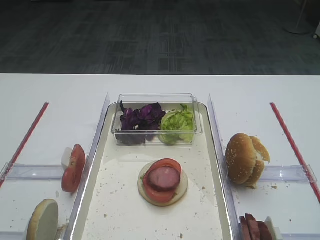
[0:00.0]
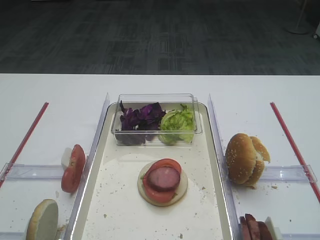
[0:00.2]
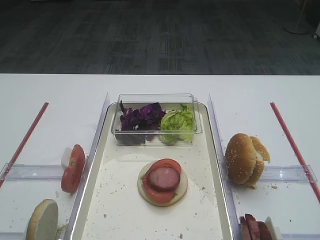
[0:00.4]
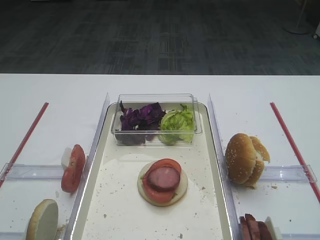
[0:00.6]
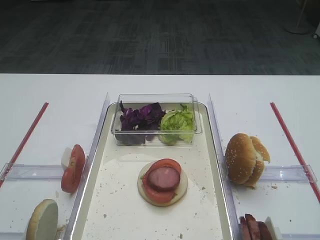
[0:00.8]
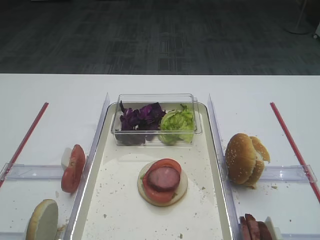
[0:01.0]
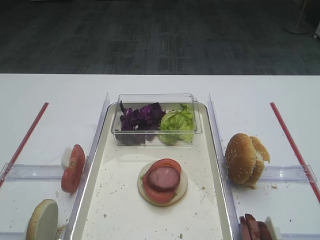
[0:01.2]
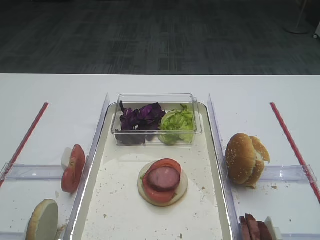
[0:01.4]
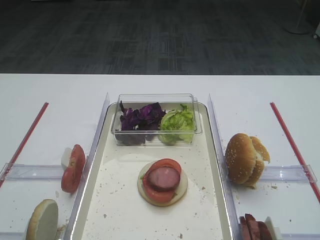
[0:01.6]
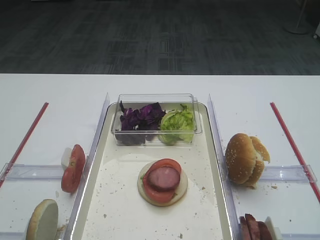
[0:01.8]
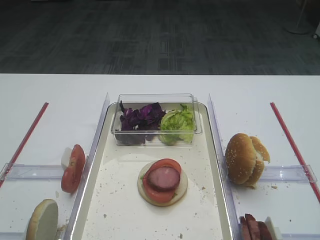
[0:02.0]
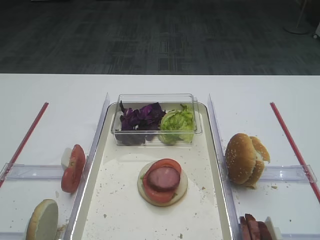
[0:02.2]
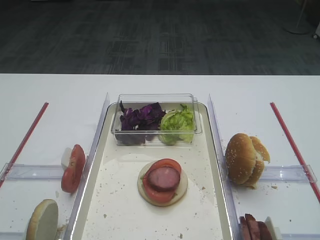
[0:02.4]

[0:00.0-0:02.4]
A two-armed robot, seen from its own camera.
0:00.0 to 0:02.4: Neither gripper changes place.

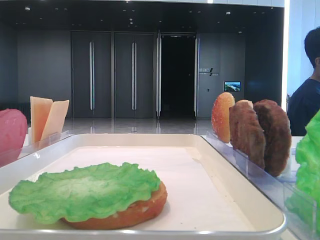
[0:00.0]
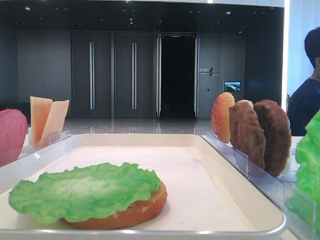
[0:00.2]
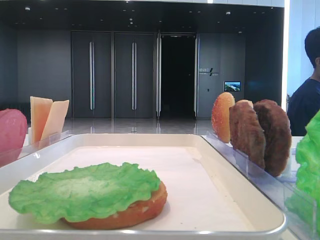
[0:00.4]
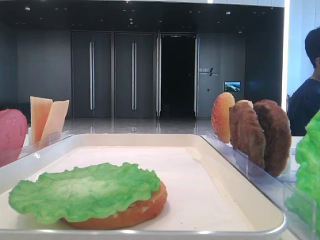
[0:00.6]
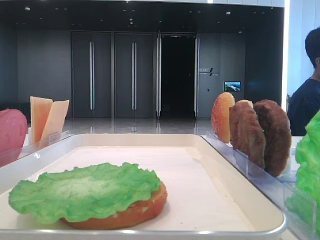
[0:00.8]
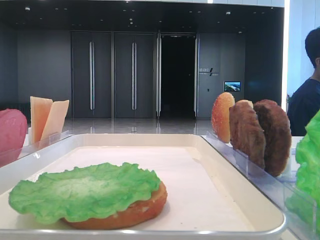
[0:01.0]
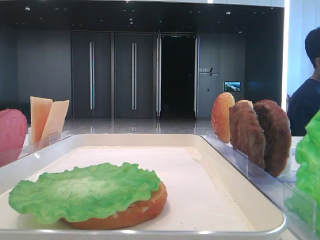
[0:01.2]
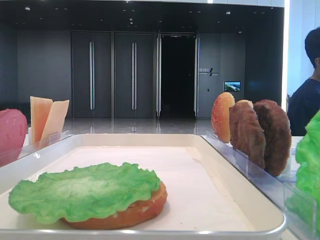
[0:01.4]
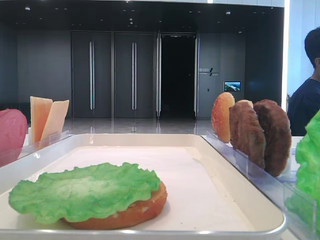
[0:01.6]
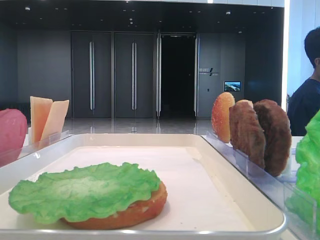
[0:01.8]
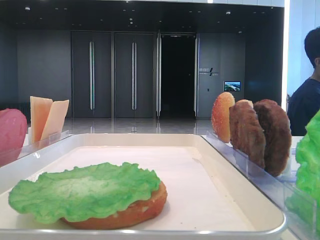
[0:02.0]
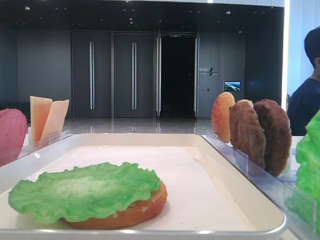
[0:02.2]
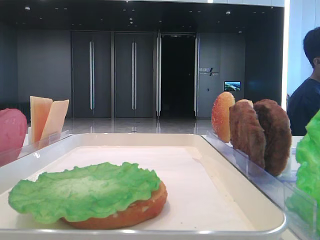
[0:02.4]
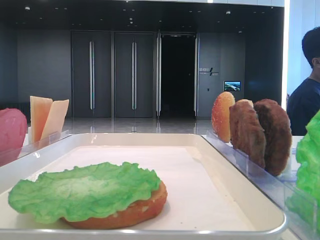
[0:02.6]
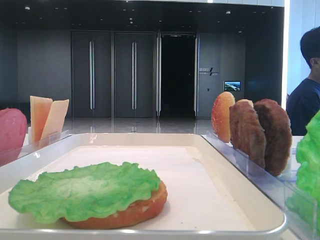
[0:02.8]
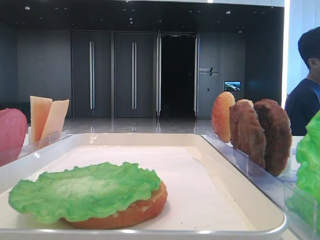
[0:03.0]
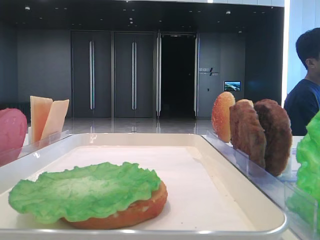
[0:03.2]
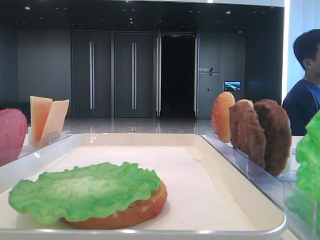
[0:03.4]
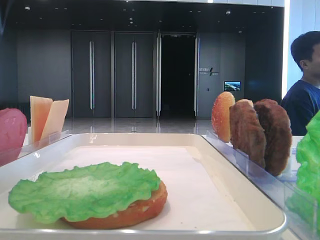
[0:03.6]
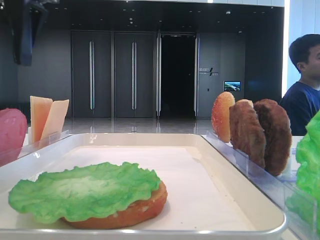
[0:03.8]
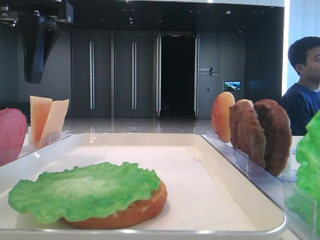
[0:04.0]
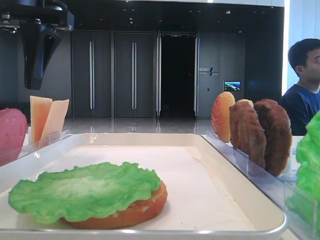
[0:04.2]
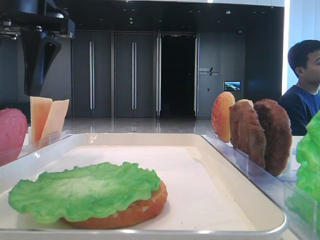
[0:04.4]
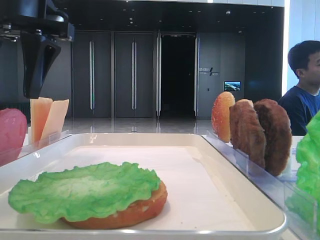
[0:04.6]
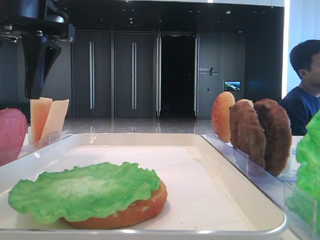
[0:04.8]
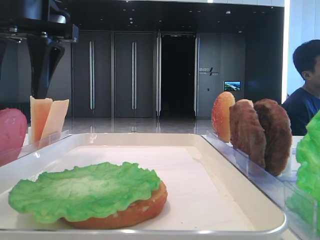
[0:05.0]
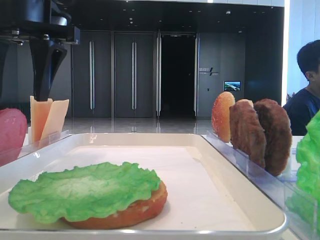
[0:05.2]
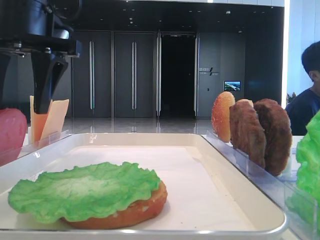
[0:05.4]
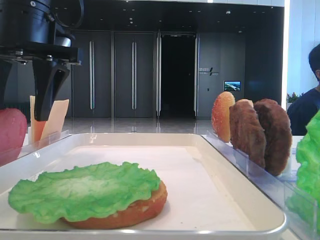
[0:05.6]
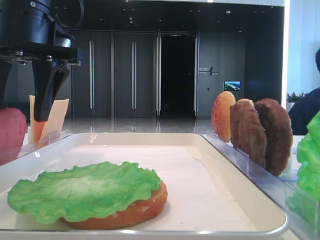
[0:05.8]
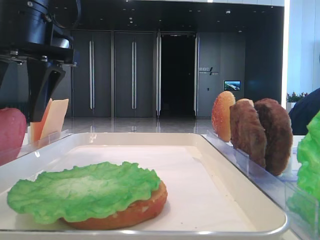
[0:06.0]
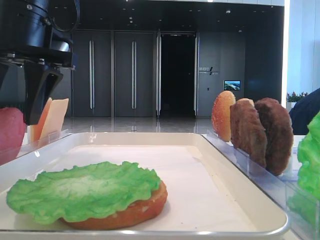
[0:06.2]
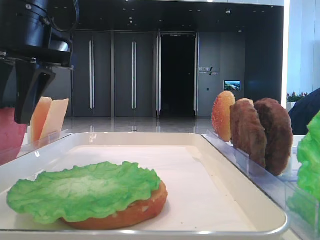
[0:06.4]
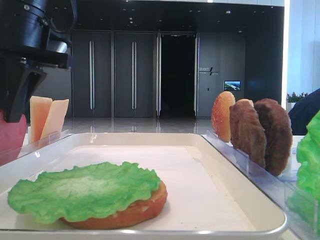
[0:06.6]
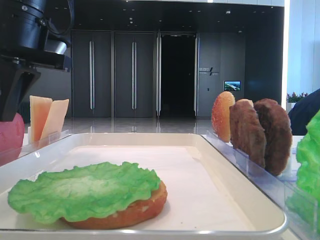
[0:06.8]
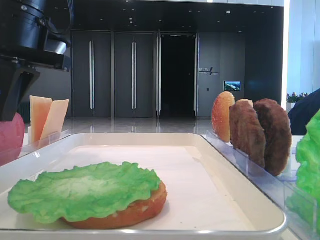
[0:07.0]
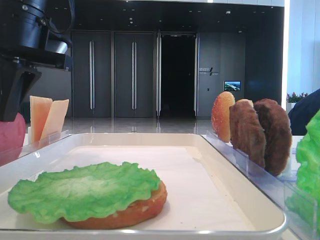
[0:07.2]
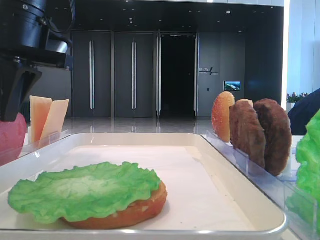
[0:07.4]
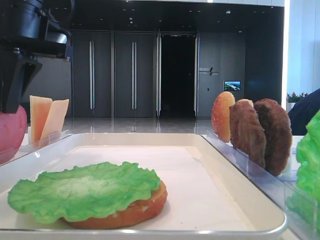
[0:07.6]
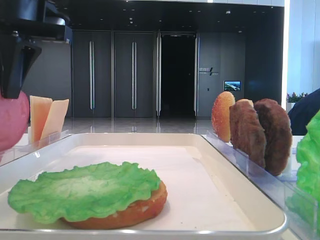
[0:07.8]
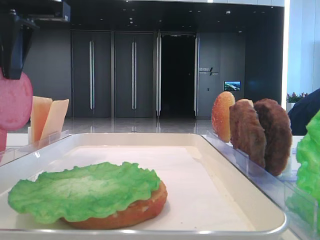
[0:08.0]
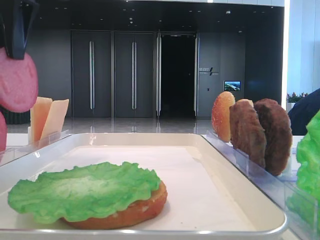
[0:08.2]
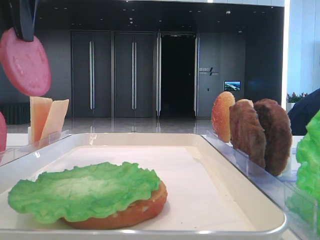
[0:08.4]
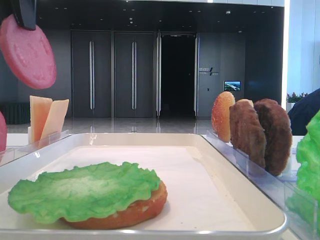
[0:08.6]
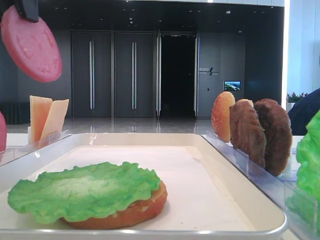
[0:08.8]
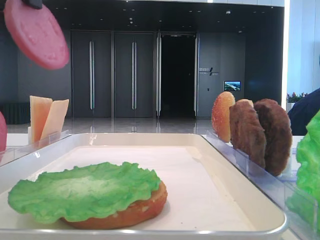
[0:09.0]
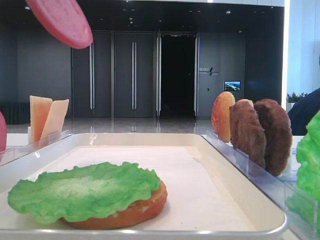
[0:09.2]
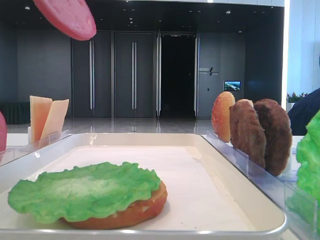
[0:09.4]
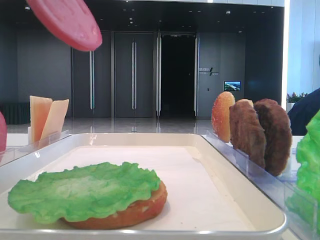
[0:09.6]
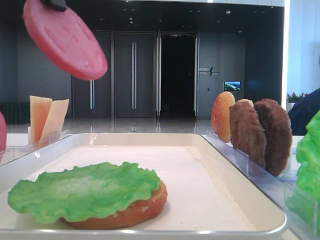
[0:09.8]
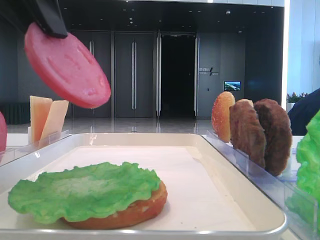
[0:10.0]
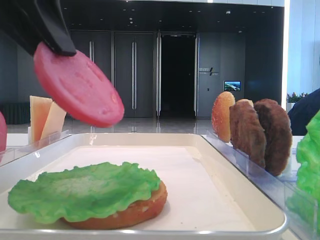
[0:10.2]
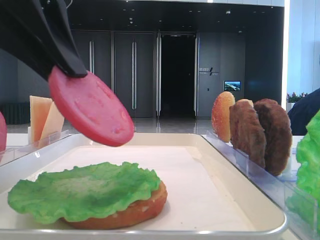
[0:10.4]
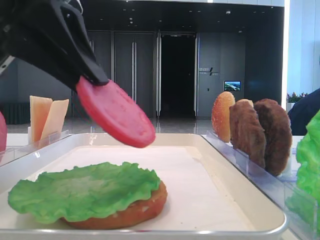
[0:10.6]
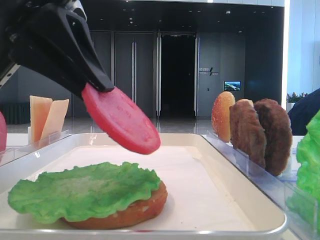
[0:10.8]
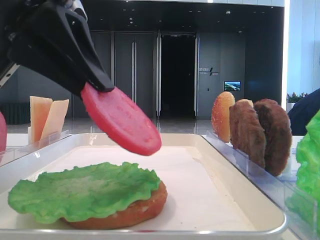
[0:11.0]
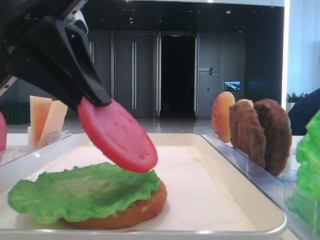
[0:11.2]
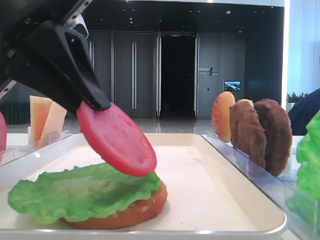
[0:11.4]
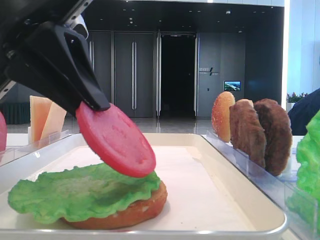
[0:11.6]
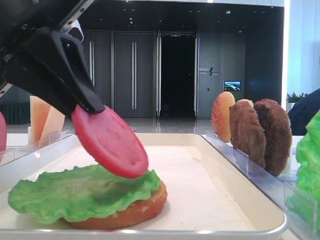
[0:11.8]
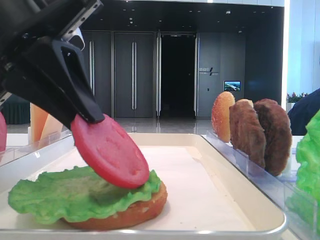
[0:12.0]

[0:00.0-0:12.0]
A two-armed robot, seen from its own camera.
Step, 0:00.0 to 0:07.4: Pick up the tomato slice with the left hand.
0:03.0 to 0:04.4: The left gripper is displaced to the right and downward by roughly 20 cm.
0:04.4 to 0:06.0: The grippers move only a little.
0:06.0 to 0:07.6: The left gripper closes its fingers.
0:07.6 to 0:09.0: The left gripper travels upward and backward by about 10 cm.
0:09.0 to 0:10.4: The left gripper moves downward, some 10 cm.
0:10.4 to 0:12.0: The grippers stay close to where they were, moving slightly.

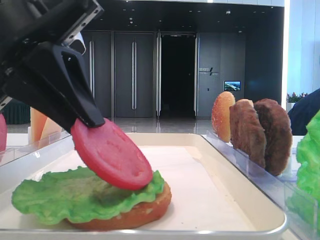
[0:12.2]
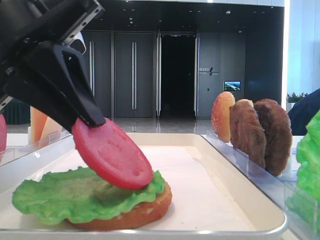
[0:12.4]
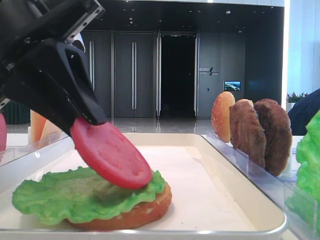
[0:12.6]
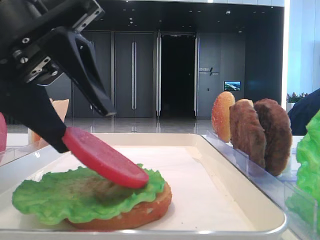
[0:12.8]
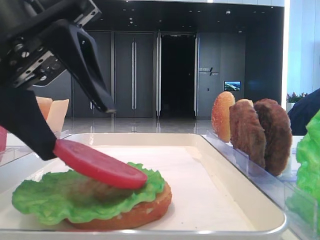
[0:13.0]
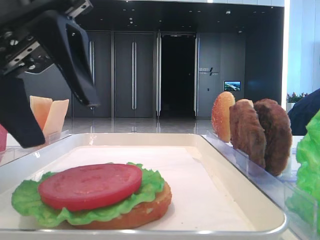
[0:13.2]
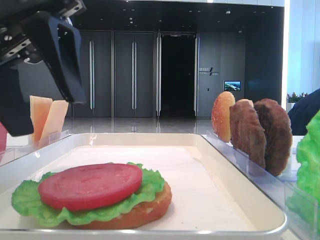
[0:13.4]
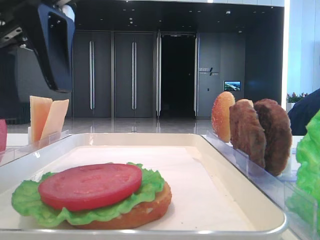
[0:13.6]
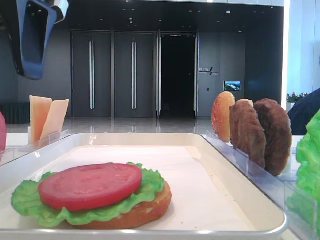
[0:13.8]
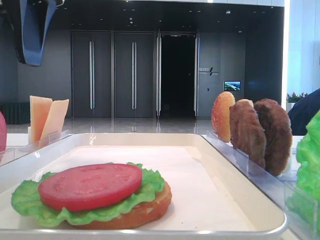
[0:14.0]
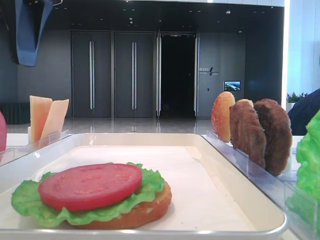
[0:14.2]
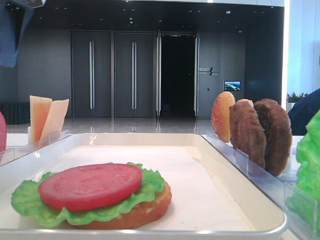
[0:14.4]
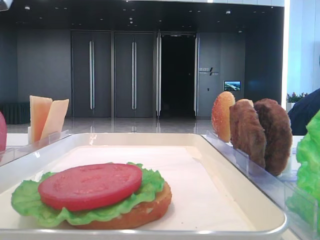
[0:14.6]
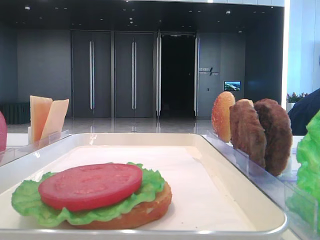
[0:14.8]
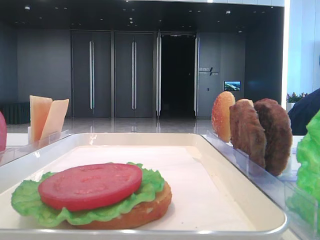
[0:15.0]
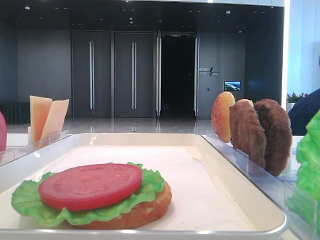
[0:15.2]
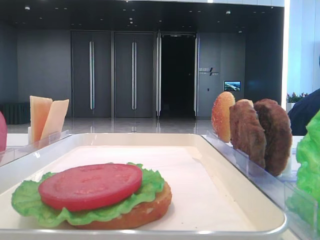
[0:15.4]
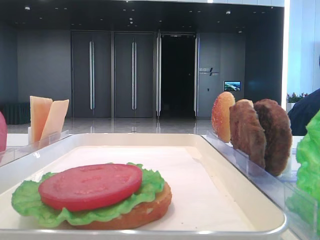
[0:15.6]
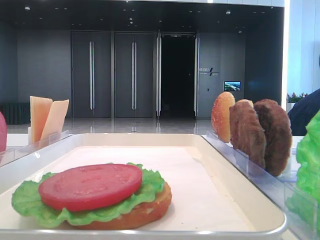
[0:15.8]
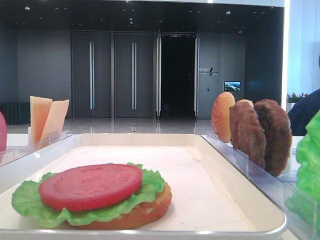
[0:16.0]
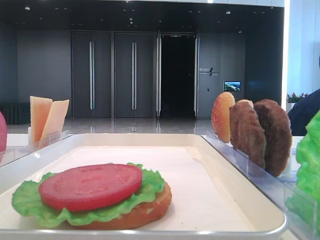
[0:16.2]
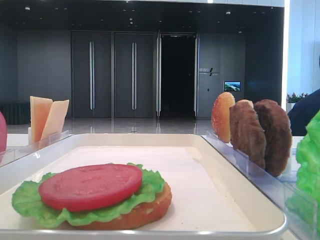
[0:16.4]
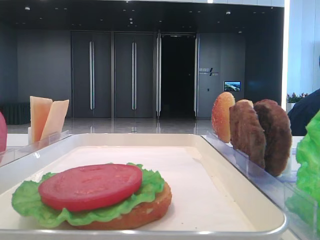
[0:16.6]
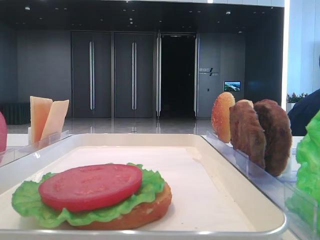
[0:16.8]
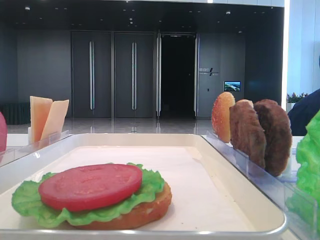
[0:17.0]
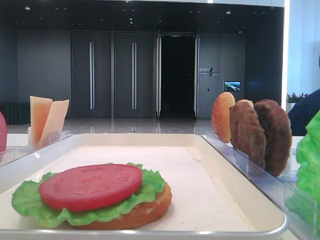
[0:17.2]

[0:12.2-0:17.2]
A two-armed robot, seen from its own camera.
0:12.2 to 0:13.8: The left gripper travels upward by approximately 5 cm, and opens its fingers.
0:13.8 to 0:15.6: The left gripper moves to the left, backward and upward, about 20 cm.

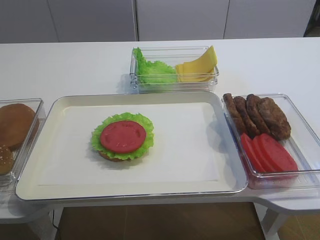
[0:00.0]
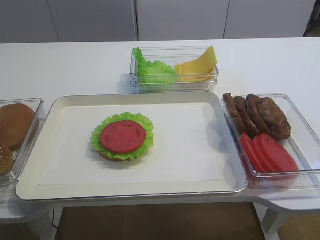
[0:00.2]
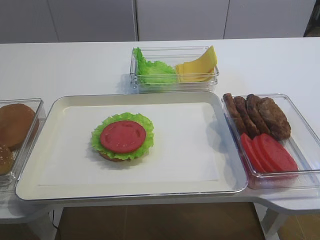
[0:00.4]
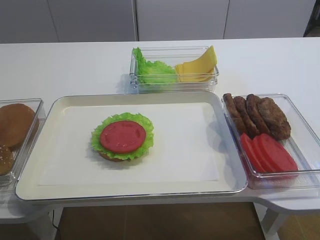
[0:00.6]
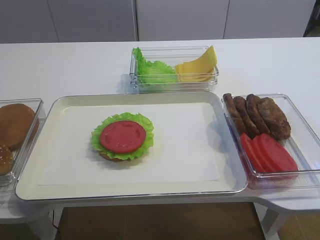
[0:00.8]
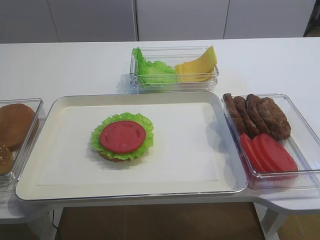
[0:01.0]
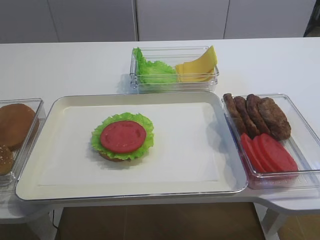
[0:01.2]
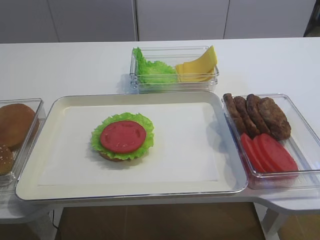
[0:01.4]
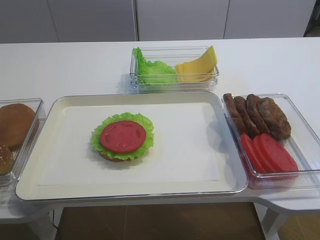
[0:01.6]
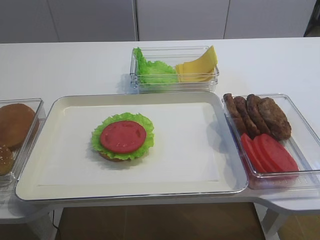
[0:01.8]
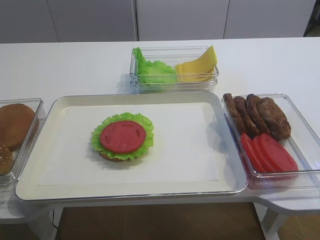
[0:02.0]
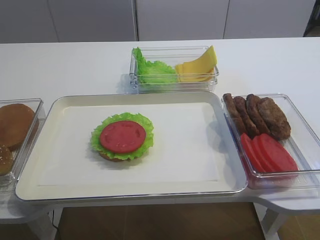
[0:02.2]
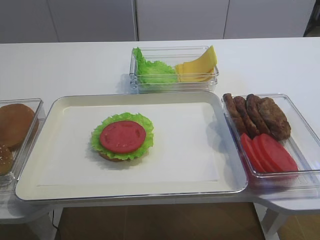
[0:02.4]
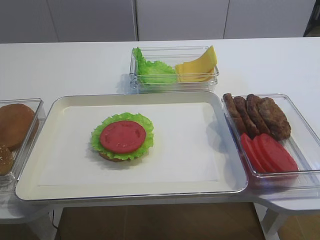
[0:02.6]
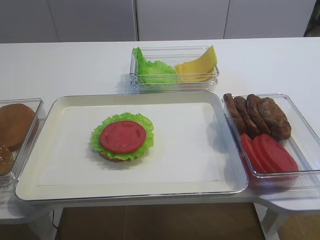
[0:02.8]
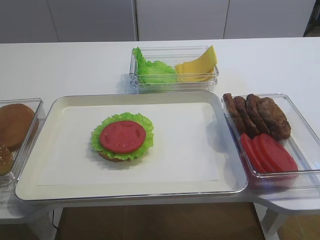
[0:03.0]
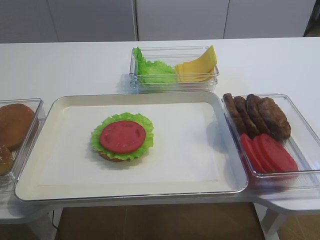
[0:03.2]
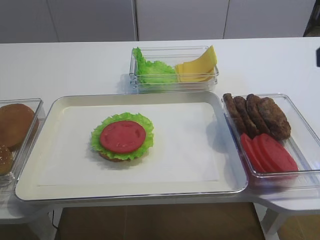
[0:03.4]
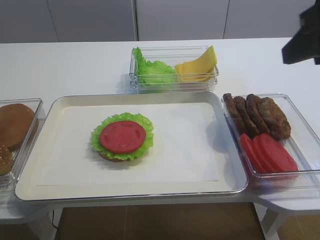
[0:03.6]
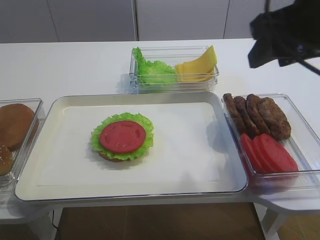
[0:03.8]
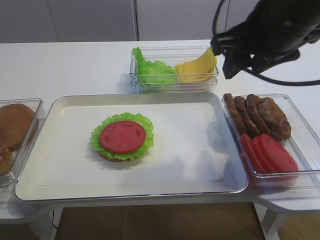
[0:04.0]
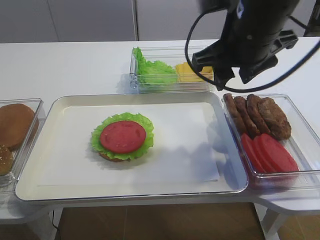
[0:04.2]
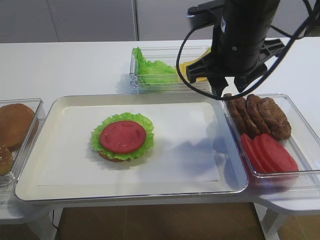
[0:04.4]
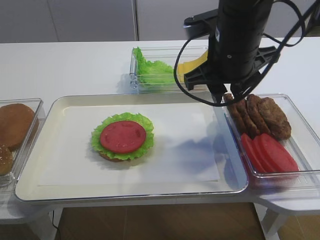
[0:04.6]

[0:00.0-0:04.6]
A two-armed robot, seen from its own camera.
0:01.6 to 0:03.0: The right gripper shifts some 15 cm forward and upward, and opens up.
0:03.0 to 0:04.6: The right gripper moves forward and to the left, roughly 25 cm, and closes its fingers.
